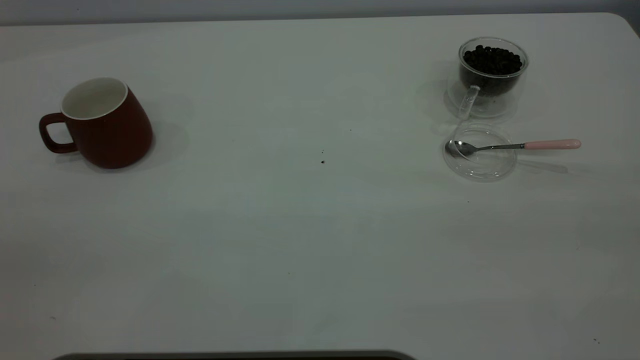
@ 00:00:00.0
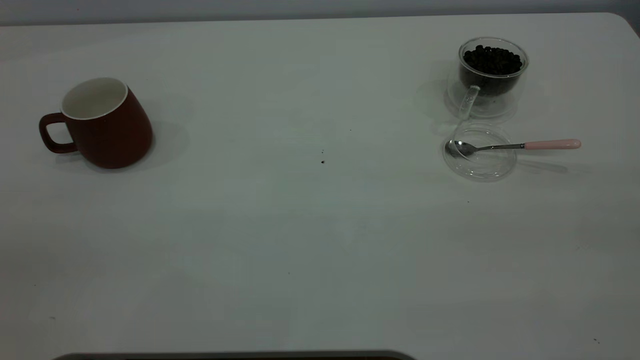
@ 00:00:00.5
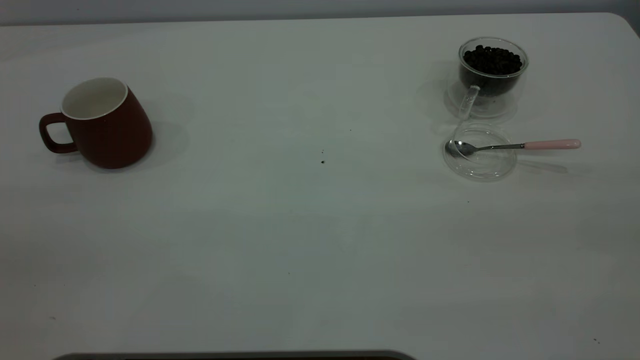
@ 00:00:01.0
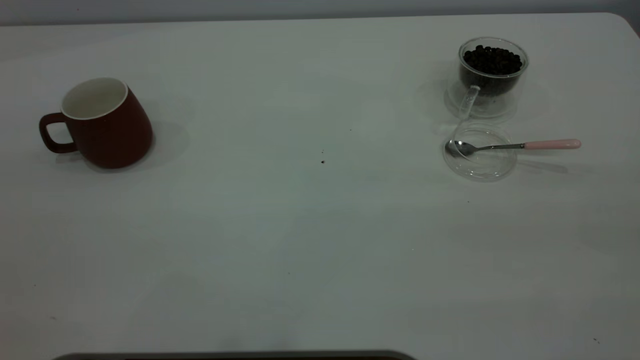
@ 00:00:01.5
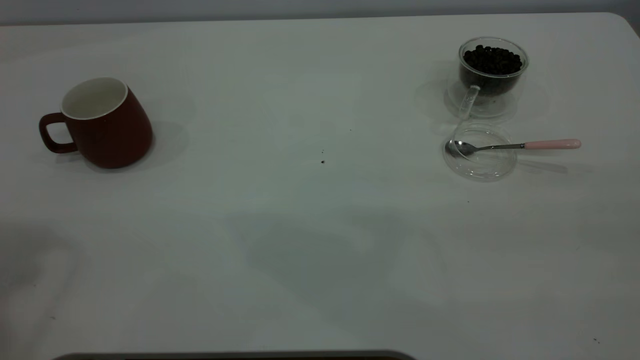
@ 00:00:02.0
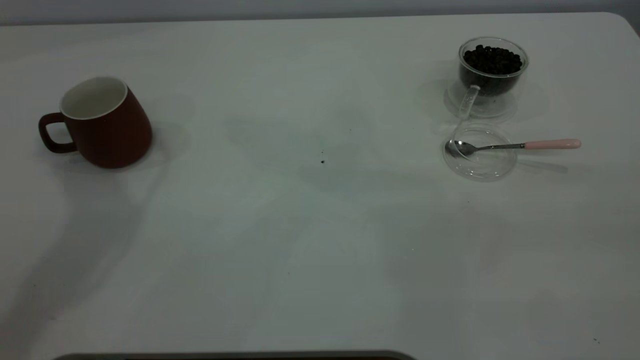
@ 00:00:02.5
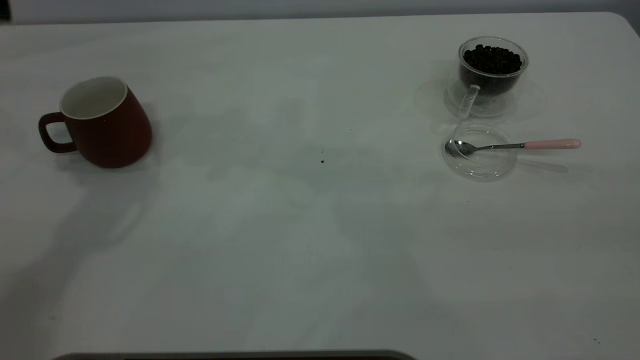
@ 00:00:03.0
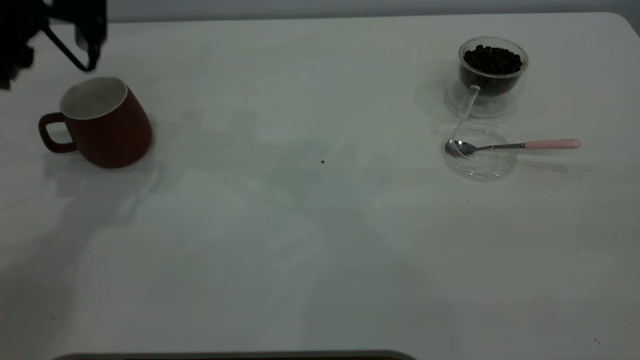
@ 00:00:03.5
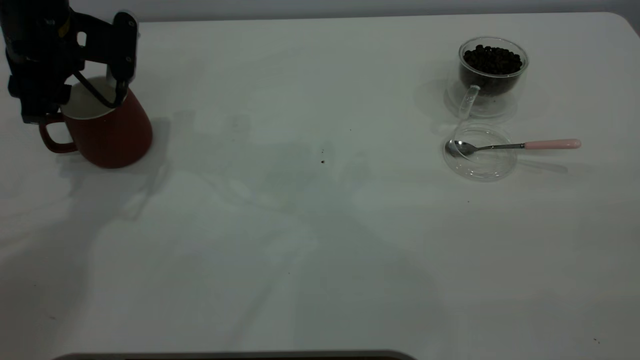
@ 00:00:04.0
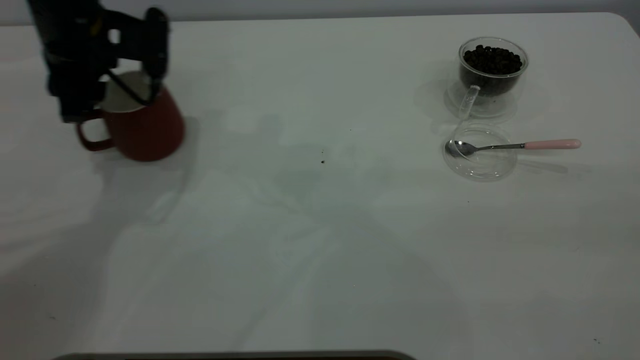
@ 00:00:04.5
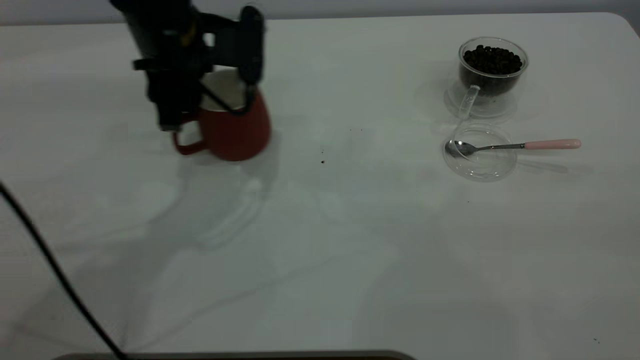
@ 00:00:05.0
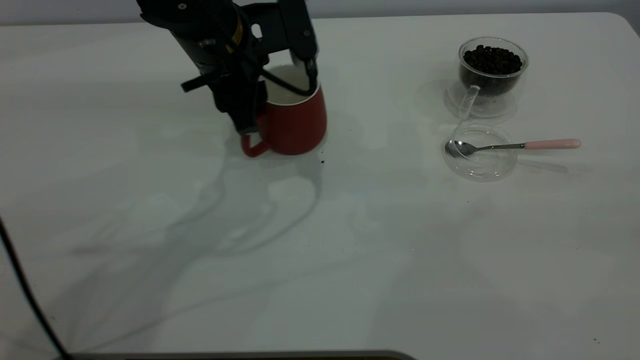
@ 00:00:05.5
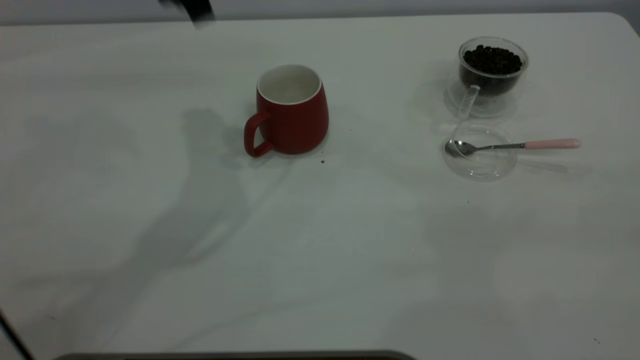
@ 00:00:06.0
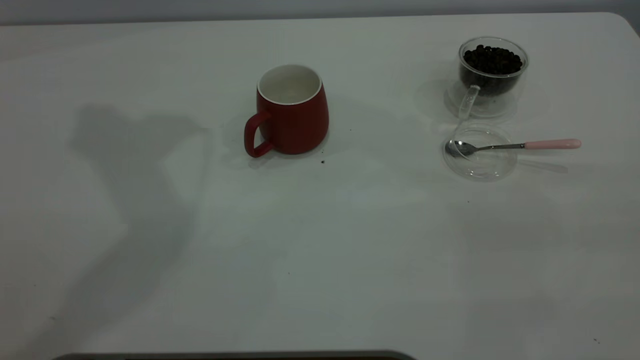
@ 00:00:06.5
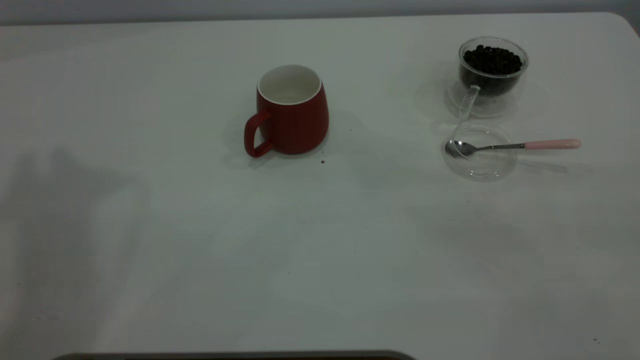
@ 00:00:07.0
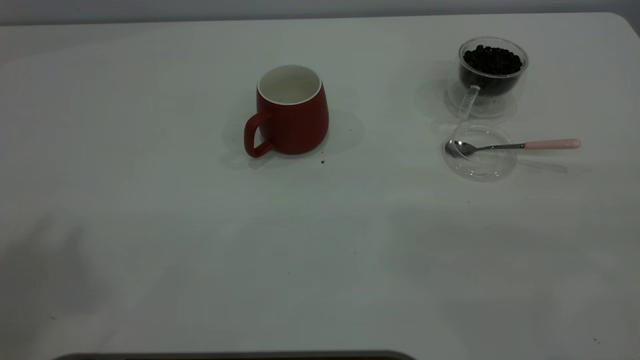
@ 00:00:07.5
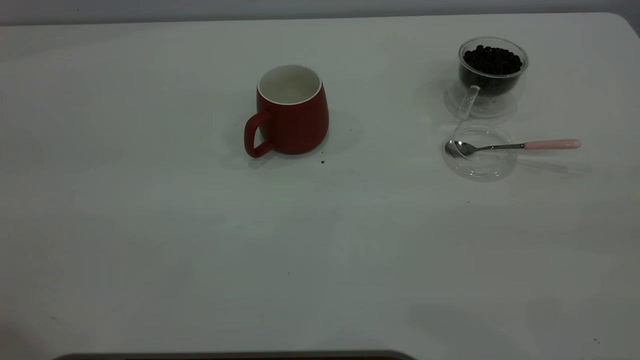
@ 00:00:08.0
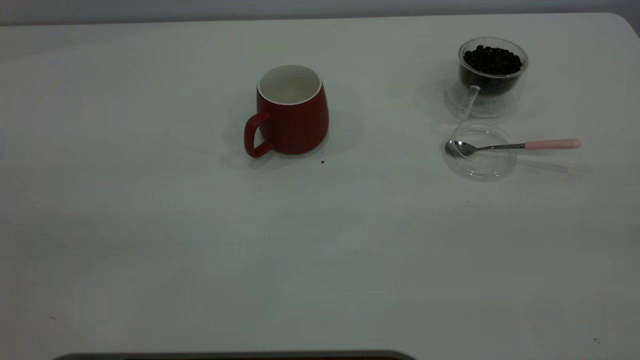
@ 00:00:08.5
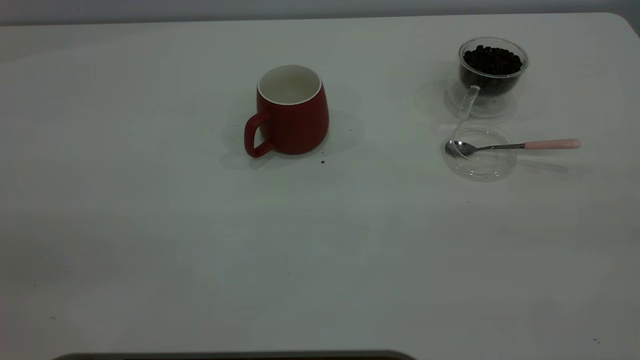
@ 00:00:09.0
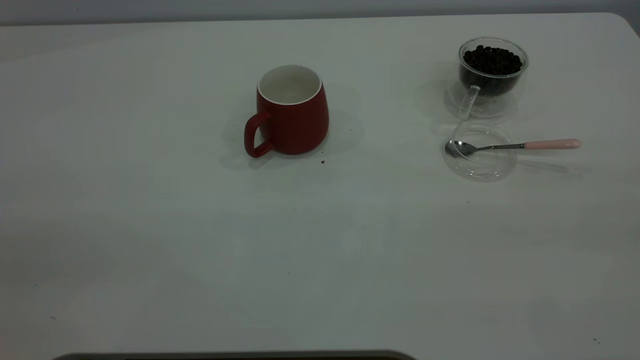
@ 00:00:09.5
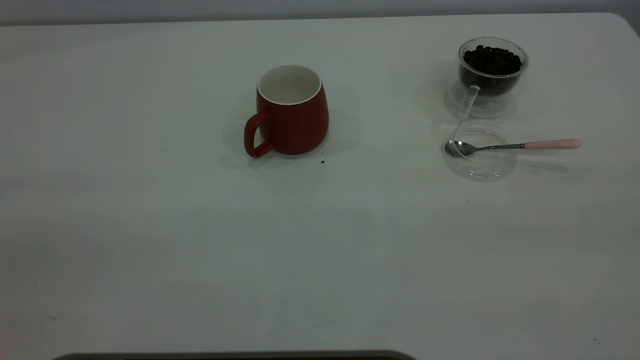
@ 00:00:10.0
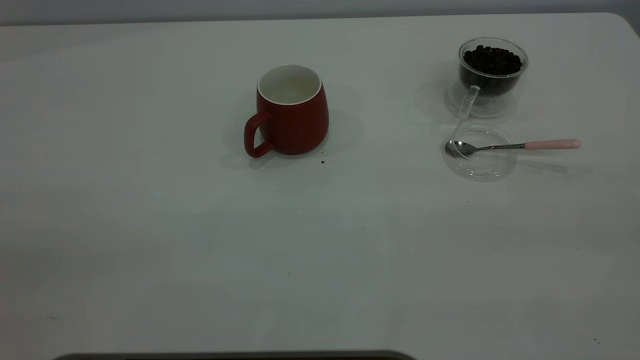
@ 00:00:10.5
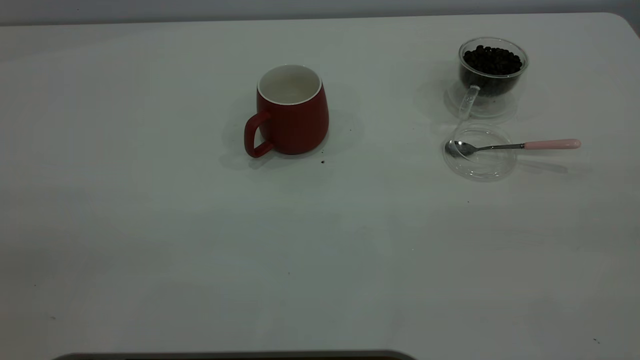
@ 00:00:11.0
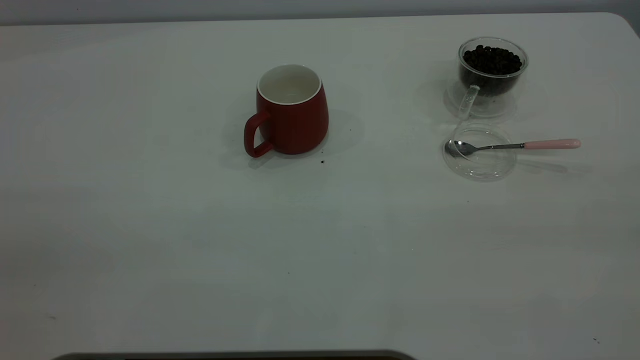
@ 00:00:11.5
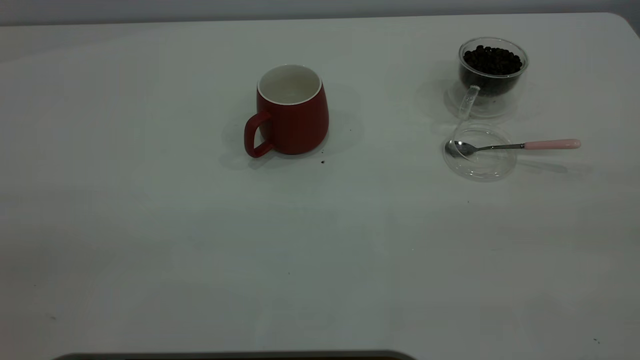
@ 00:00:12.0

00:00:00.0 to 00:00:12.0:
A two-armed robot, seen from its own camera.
Task of the whole recording: the left gripper place the red cup in the center of the table, the right gripper take the pink spoon from the cup lid and scoop out the coffee beans from the coffee cup and put them into the red cup, the right gripper put the spoon back into the cup lid.
Step, 00:00:00.0 to 00:00:05.5: Move the cup to the center of view.
00:00:02.0 to 00:00:04.0: The left gripper travels downward and forward by roughly 35 cm, and closes up.
00:00:04.0 to 00:00:06.0: The left gripper moves to the right and upward, about 20 cm.

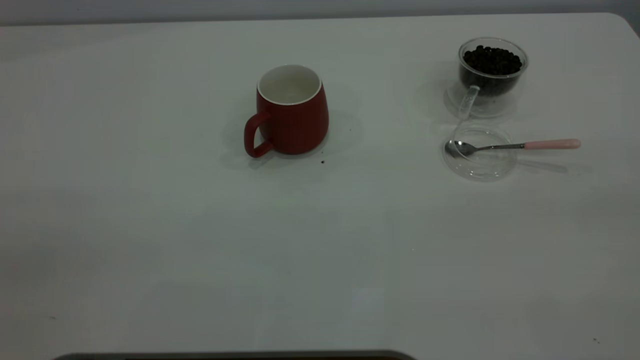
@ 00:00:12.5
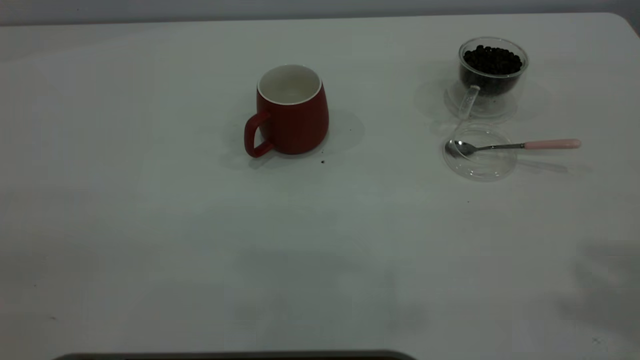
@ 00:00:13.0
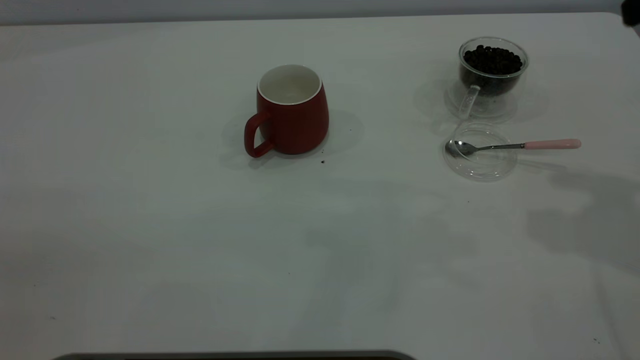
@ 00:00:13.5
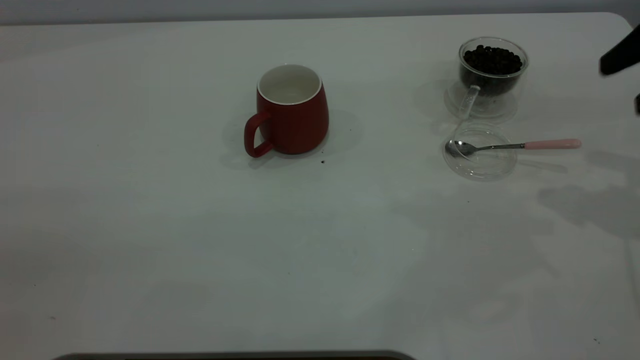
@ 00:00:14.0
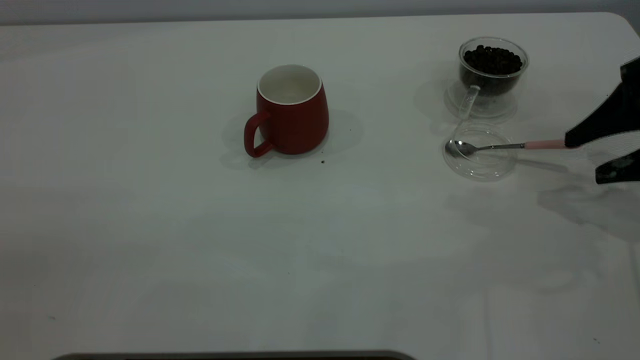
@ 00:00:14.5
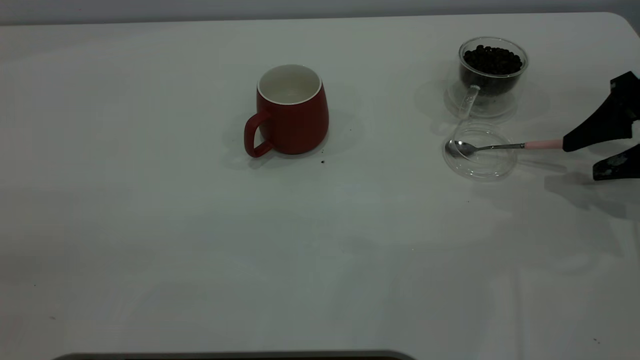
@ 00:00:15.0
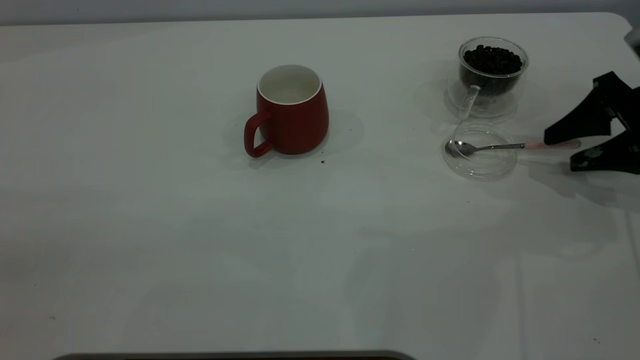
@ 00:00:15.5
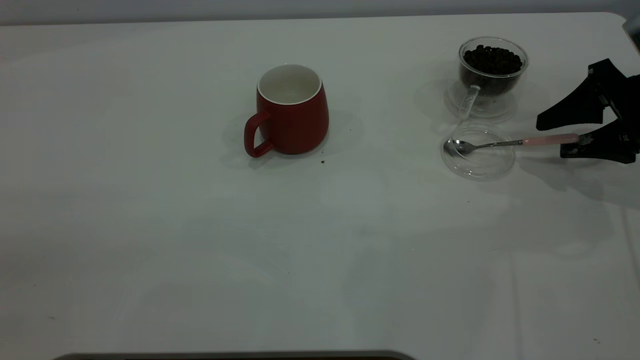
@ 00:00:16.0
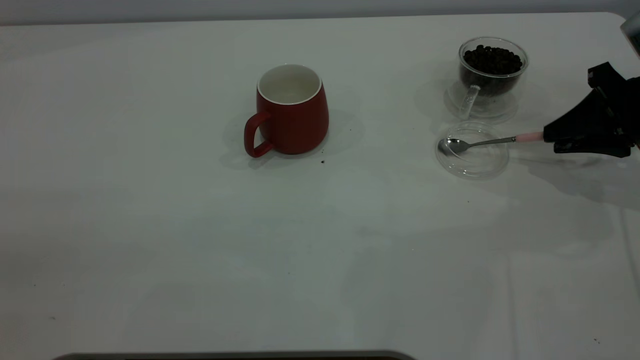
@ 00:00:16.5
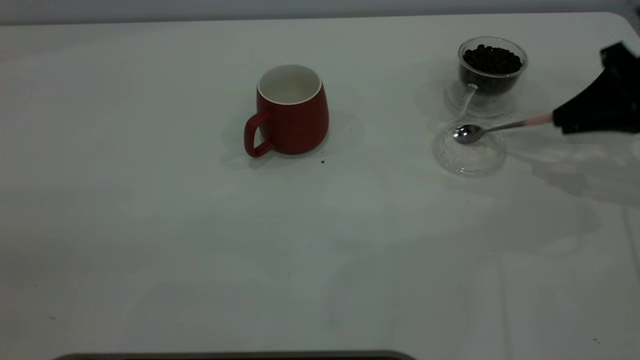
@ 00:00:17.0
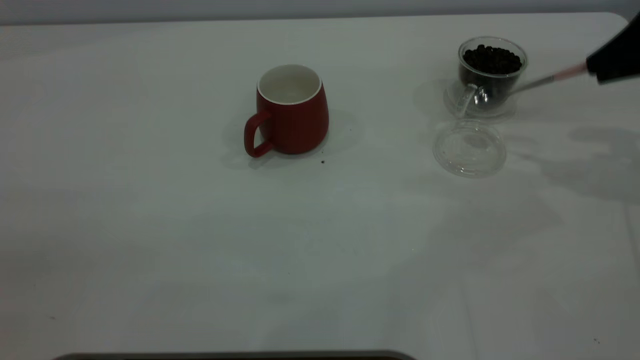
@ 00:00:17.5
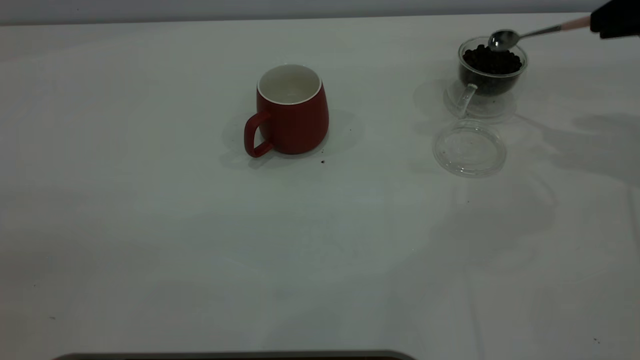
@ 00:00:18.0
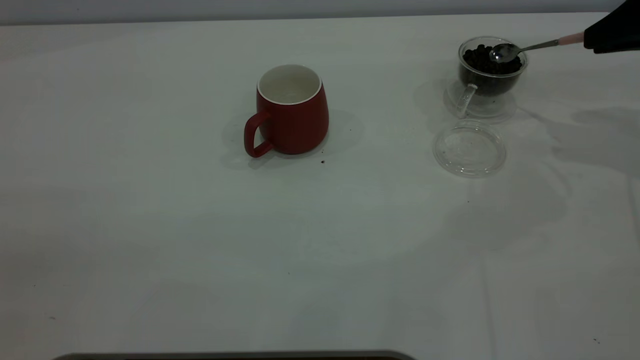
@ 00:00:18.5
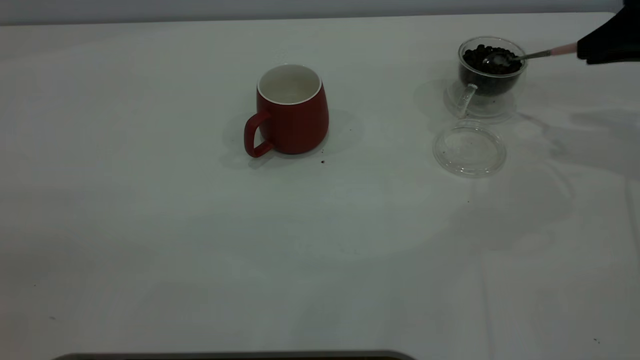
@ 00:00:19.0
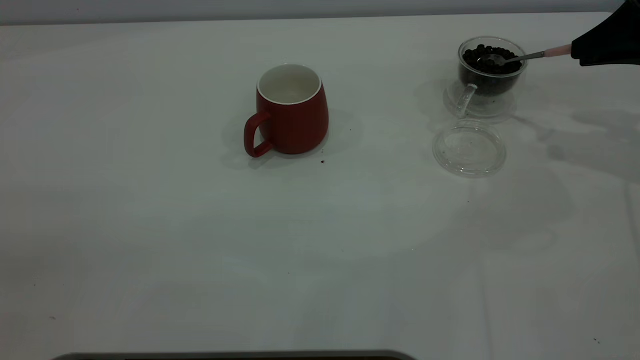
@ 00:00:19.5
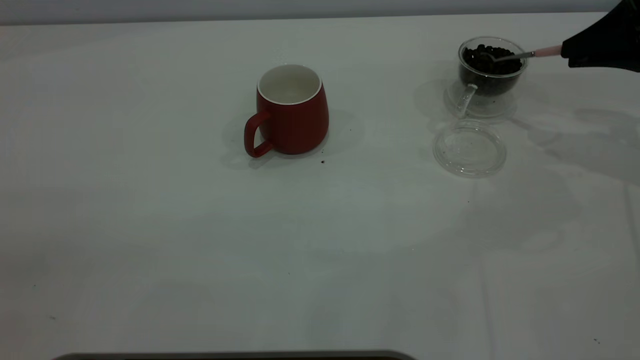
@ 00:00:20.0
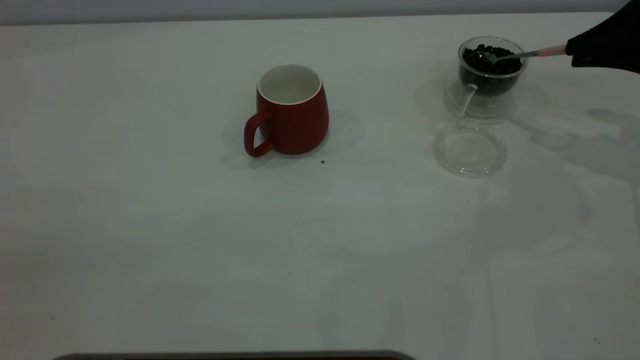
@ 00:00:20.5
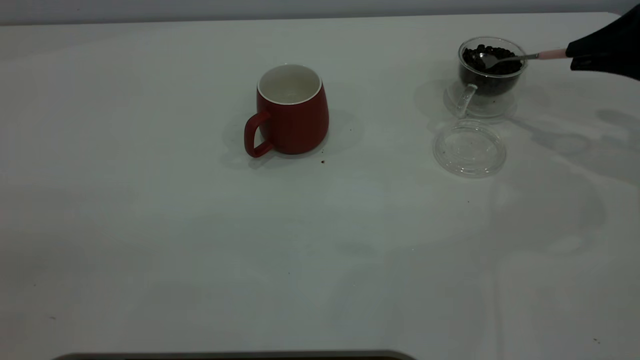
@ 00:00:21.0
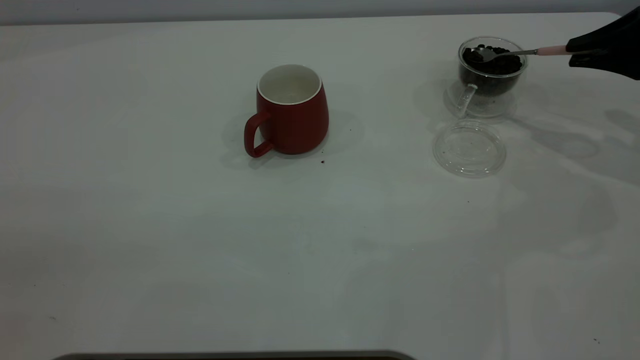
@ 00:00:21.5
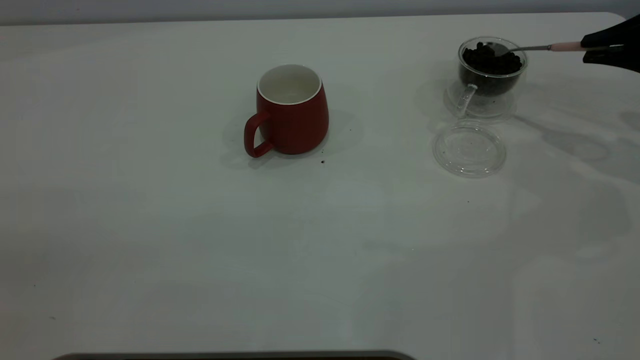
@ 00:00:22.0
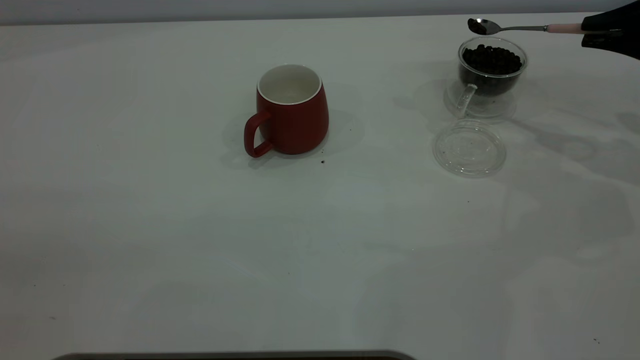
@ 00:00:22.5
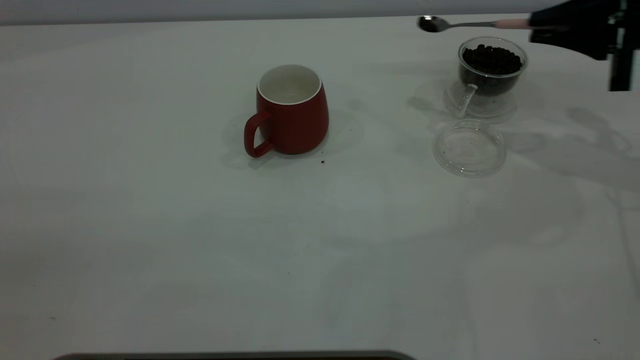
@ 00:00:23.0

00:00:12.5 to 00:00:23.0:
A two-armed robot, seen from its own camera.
Task of the whole recording: the left gripper place the red cup in the center of the table, the right gripper take the pink spoon from the cup lid and scoop out the coffee beans from the coffee cup and put them into the red cup, the right gripper put the spoon back into the cup lid.
Step, 00:00:12.5 to 00:00:17.0: Pick up the spoon.
00:00:12.5 to 00:00:14.5: The right gripper shifts about 40 cm forward and downward.
00:00:14.5 to 00:00:16.5: The right gripper shifts by approximately 5 cm, and closes its fingers.
00:00:16.5 to 00:00:19.0: The right gripper goes roughly 10 cm upward.
00:00:21.0 to 00:00:23.0: The grippers stay close to where they were, moving slightly.
